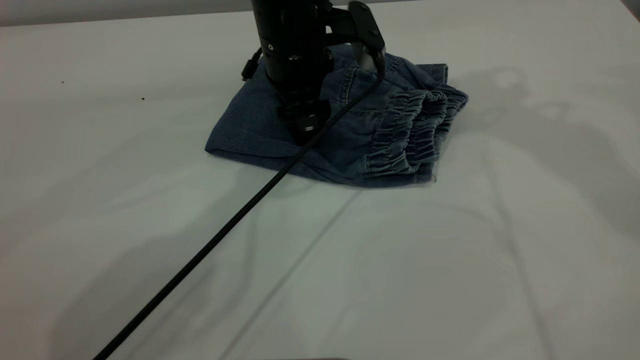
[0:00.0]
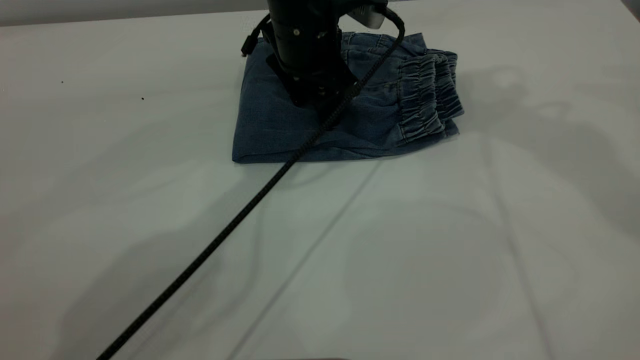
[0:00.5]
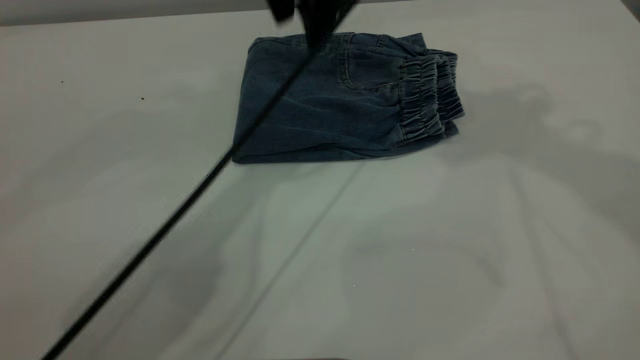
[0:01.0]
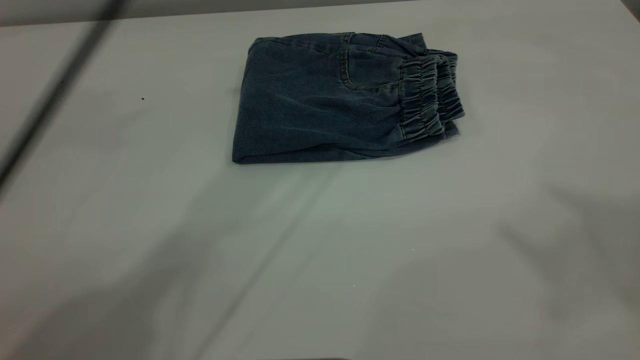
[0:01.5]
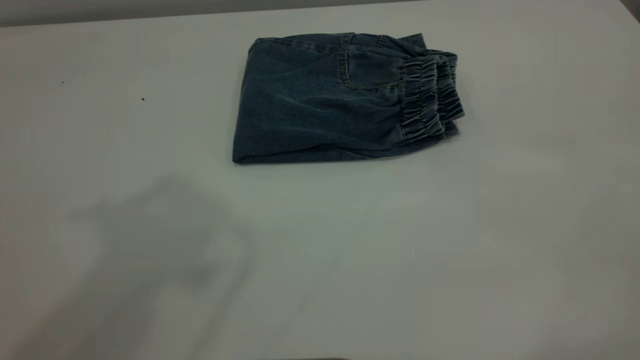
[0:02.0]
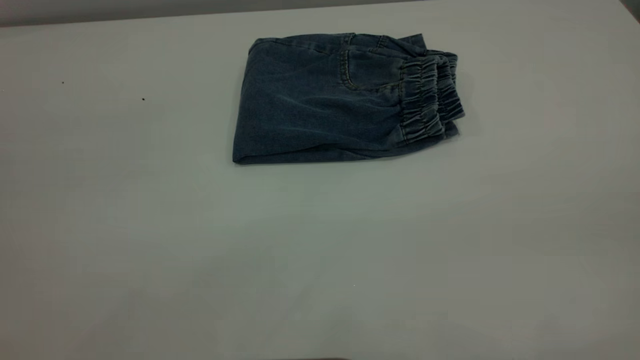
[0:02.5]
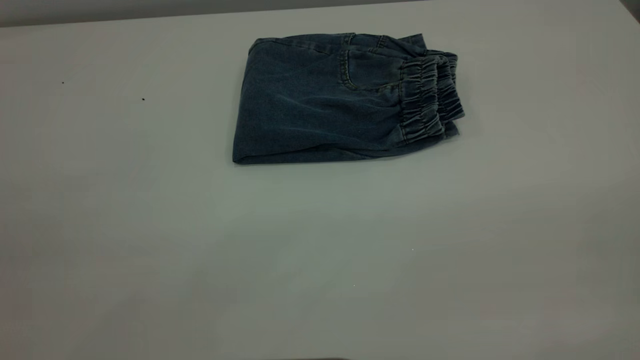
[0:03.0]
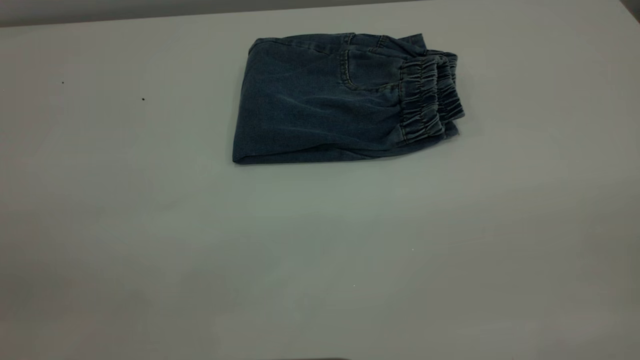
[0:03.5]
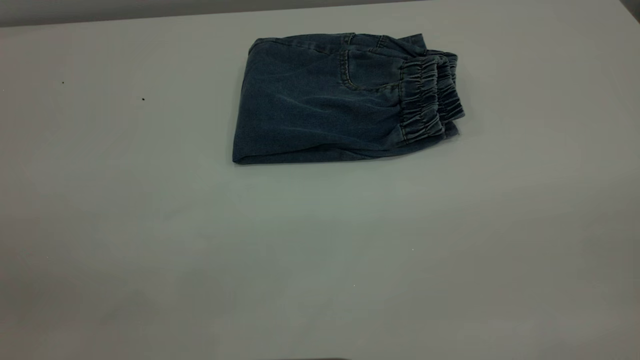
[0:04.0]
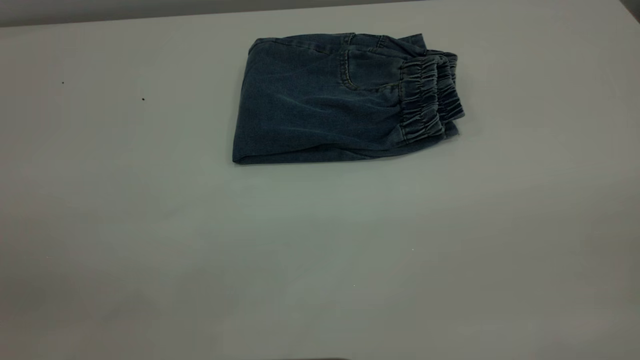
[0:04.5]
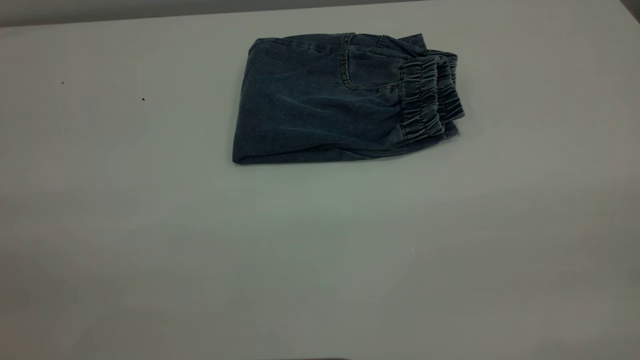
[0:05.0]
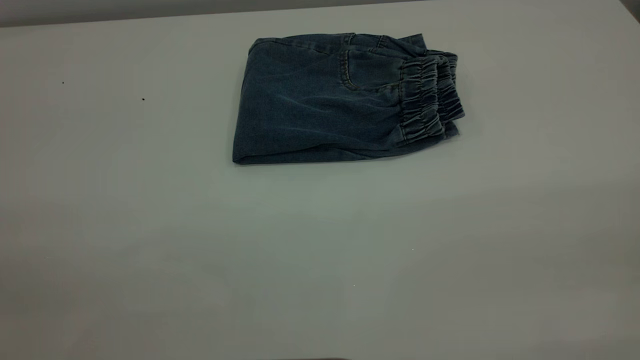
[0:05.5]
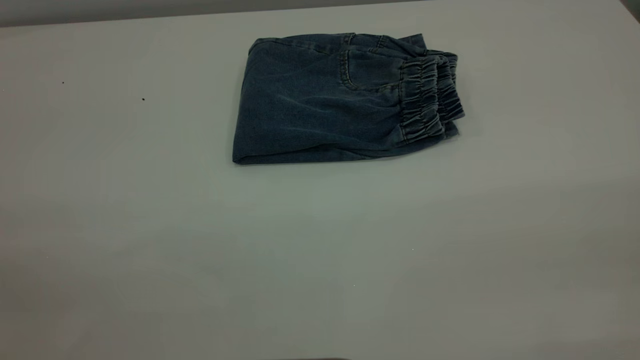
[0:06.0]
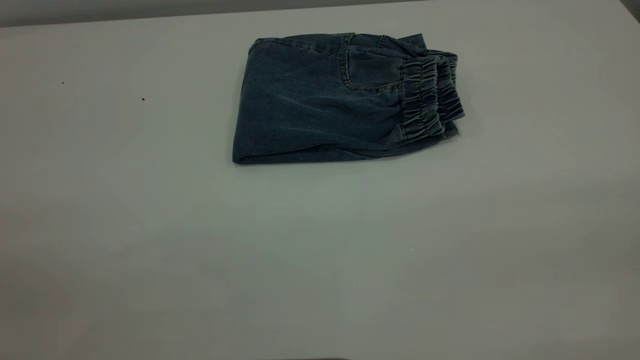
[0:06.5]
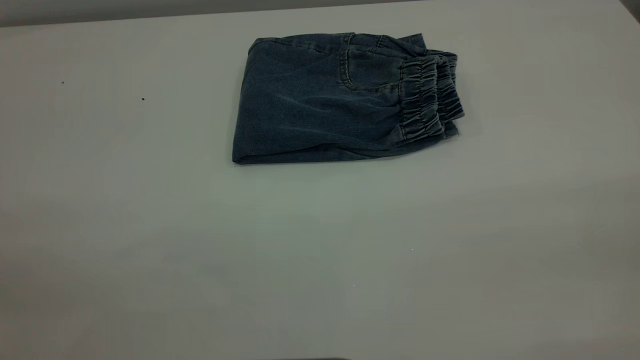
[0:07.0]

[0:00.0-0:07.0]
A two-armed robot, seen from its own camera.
0:00.0 to 0:02.0: The right gripper travels backward and upward by some 40 cm; the left gripper heads upward and backward, covering roughly 40 cm.
